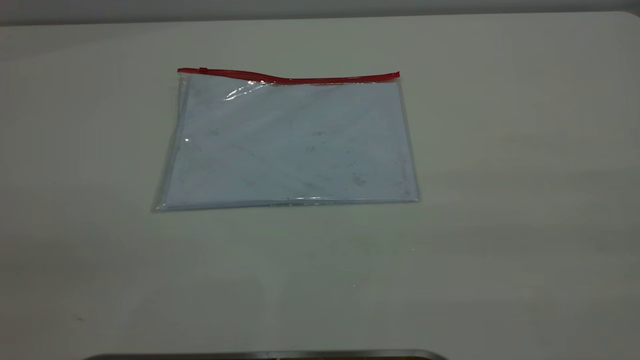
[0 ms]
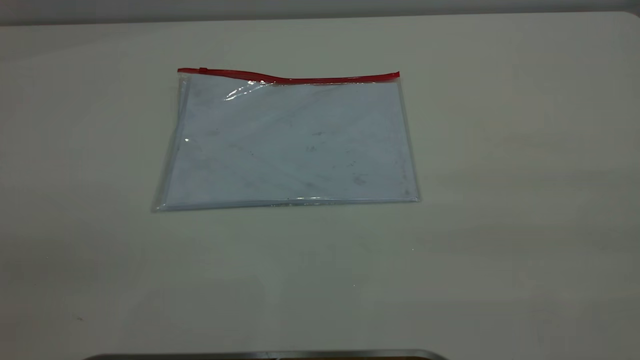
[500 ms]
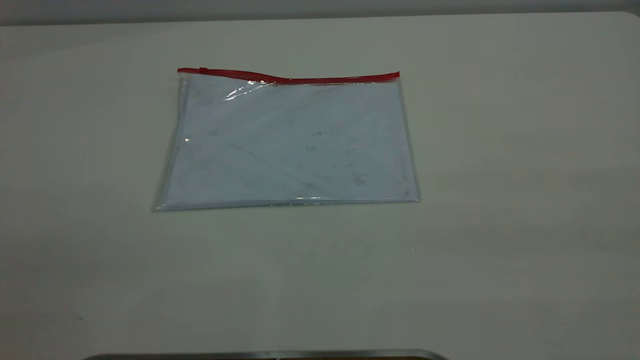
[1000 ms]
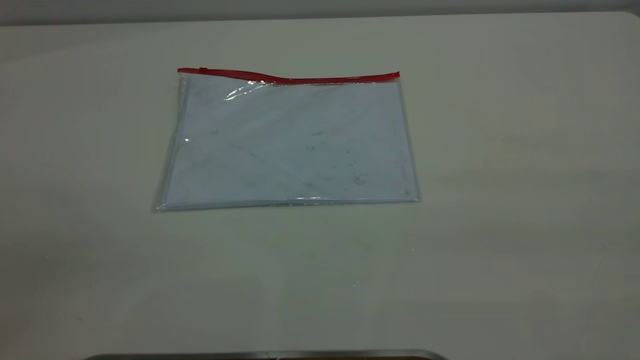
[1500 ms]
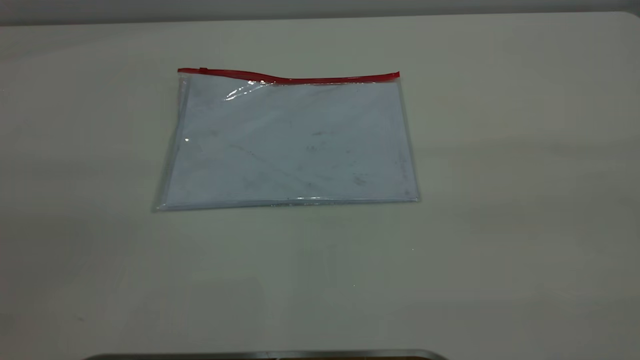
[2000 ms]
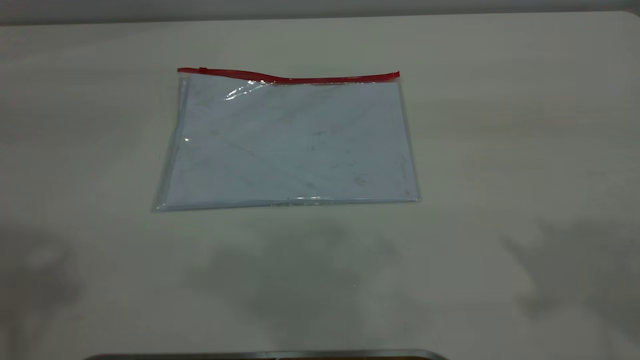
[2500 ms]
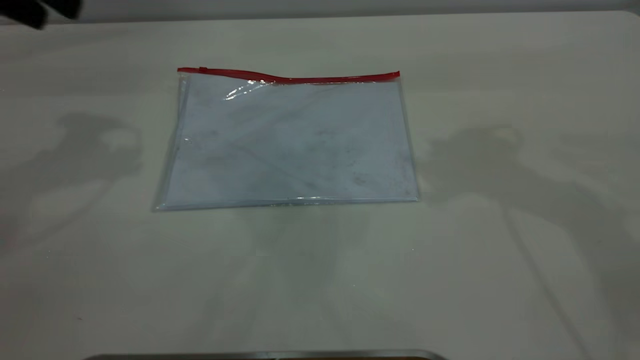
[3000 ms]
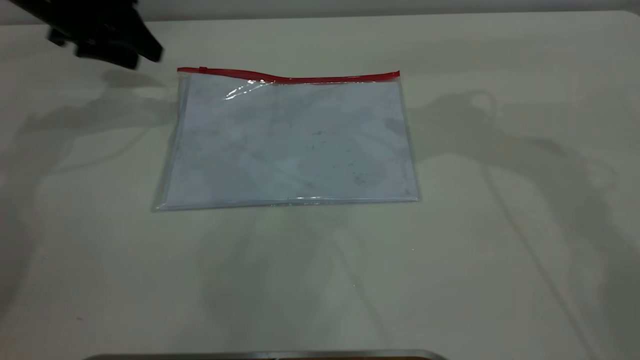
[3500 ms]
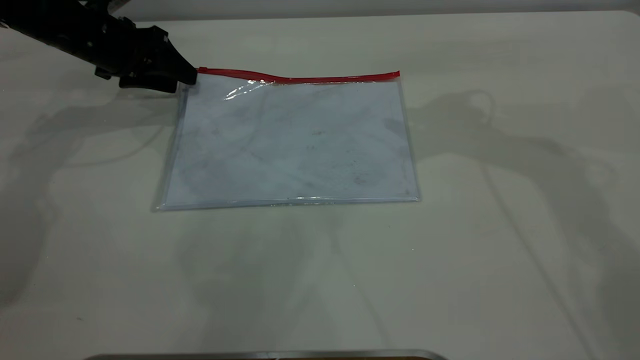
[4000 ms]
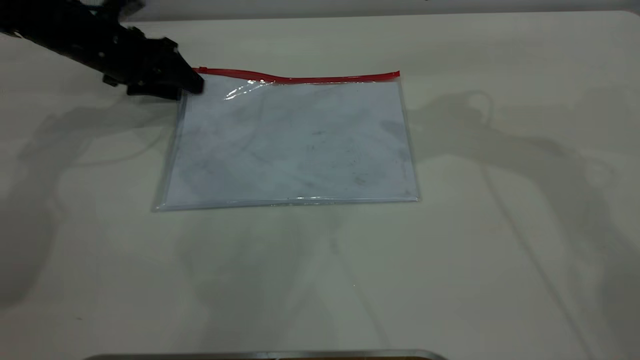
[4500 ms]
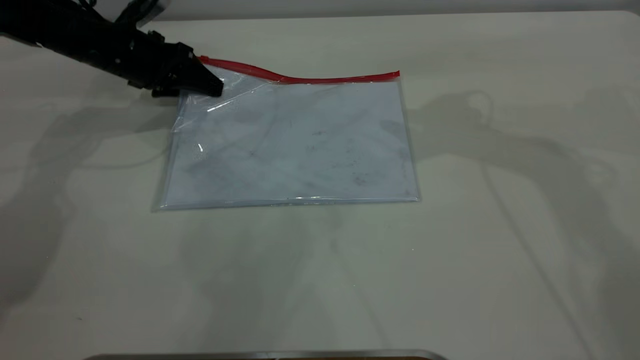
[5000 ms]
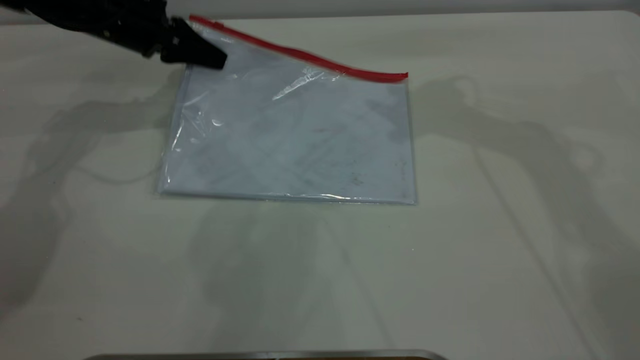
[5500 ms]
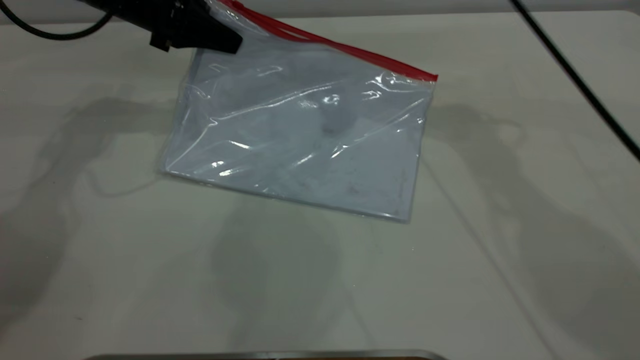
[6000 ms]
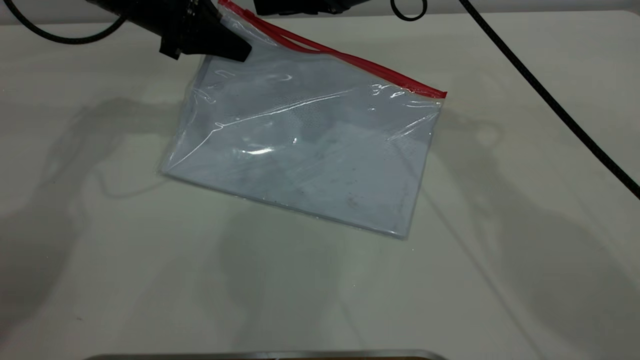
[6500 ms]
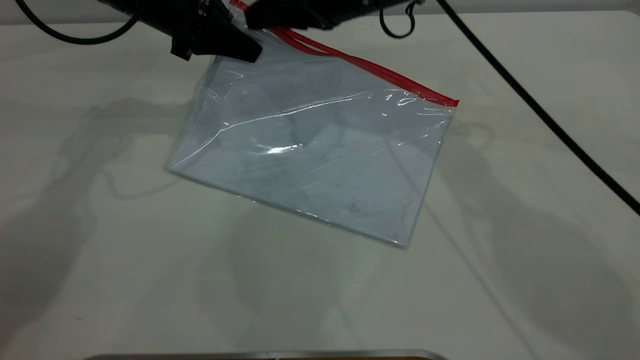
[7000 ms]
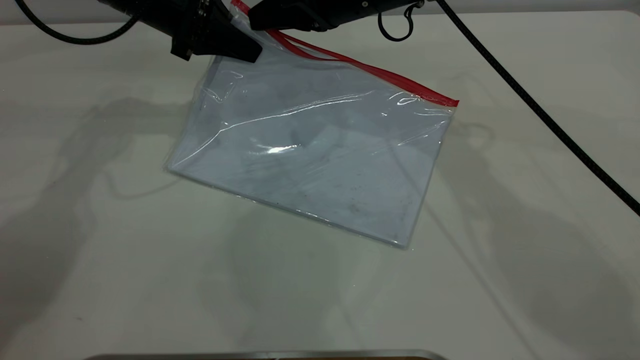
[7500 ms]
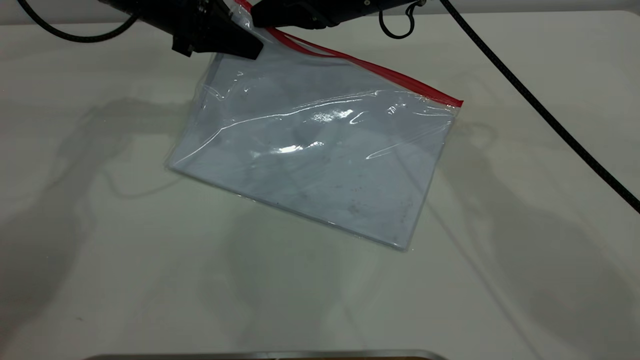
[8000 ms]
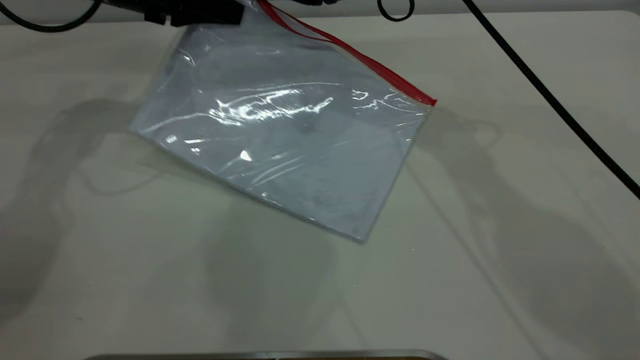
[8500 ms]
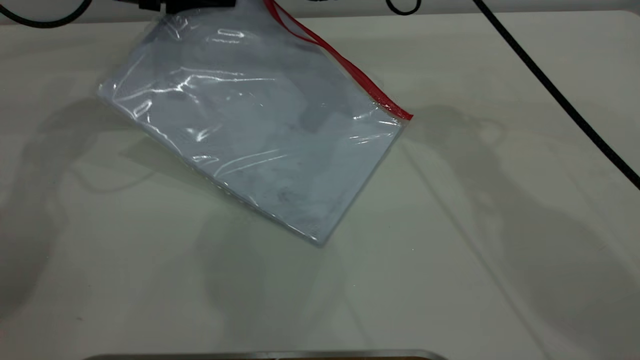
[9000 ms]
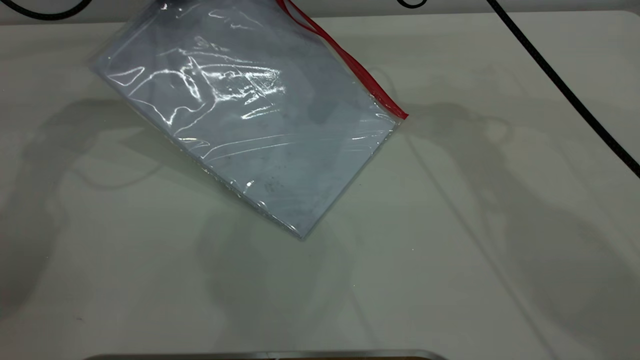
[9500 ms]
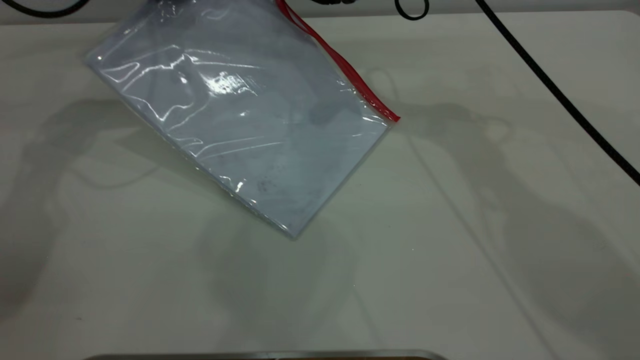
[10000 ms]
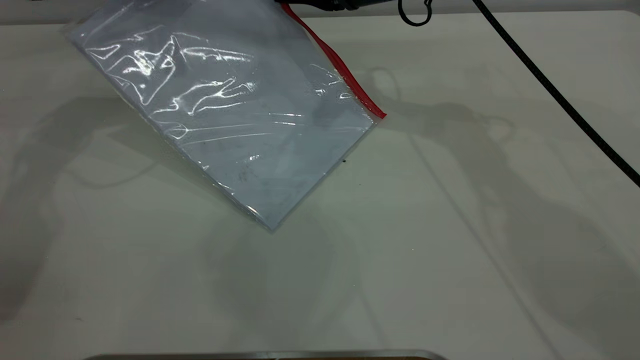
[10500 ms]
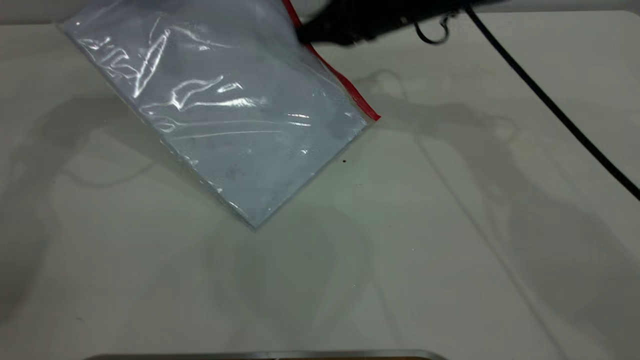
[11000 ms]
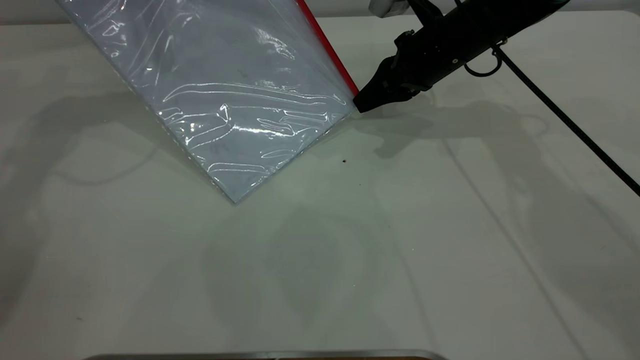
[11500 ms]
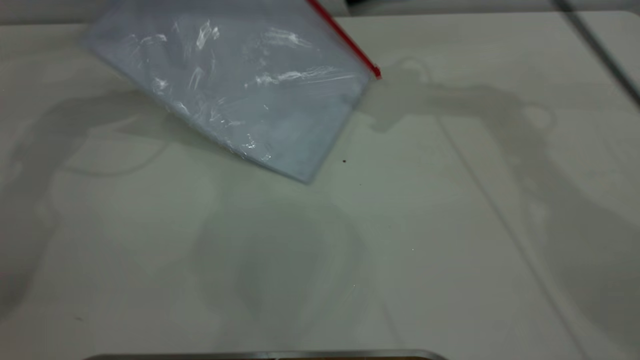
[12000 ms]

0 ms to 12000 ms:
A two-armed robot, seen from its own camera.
Step, 0 ms to 5500 ms: Pick up the transparent plastic bag with the left gripper.
Step, 6000 ms to 11500 ms: Pulling up the zipper on the transparent plastic bag with the right gripper to close it.
2000 ms to 4000 ms: The left gripper travels forward and downward by roughly 50 cm.
4000 ms to 6000 ms: The left gripper shifts some 10 cm to the right and upward, and closes, while the right gripper heads to the left and forward, covering about 10 cm.
6000 ms to 8000 ms: The right gripper closes its fingers.
8000 ms to 10000 ms: The left gripper shifts by roughly 5 cm.
10000 ms to 12000 ms: The right gripper shifts approximately 10 cm upward and to the right, and opens up.

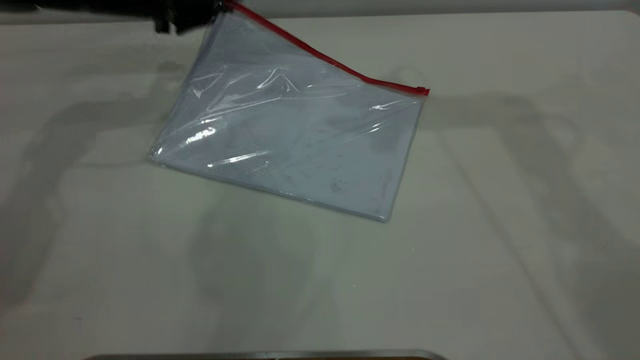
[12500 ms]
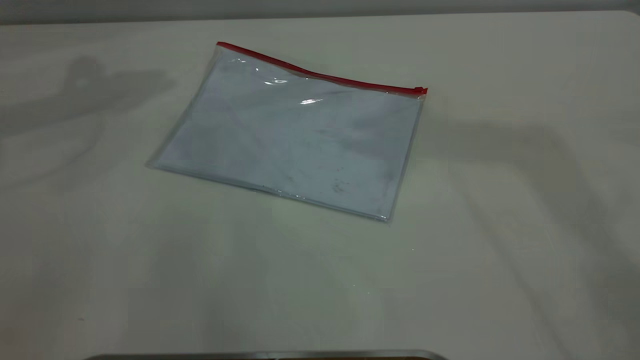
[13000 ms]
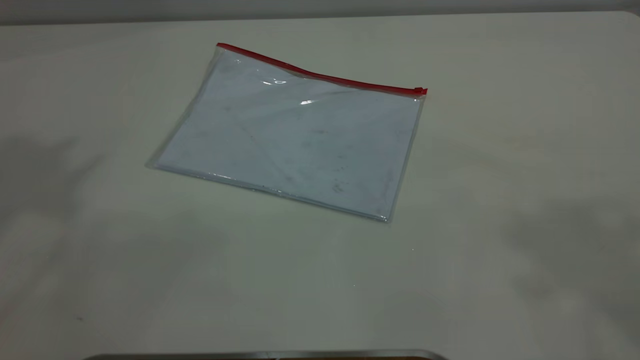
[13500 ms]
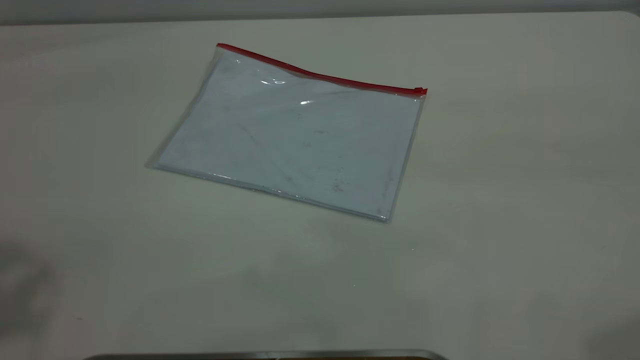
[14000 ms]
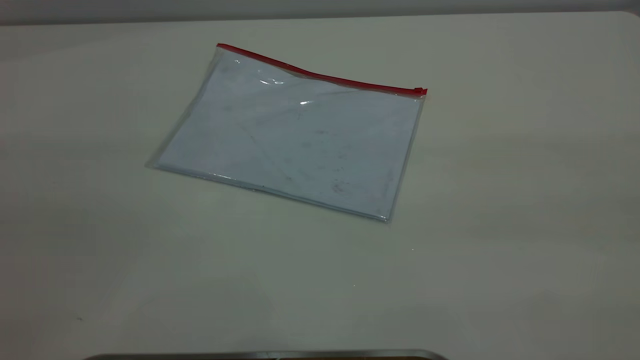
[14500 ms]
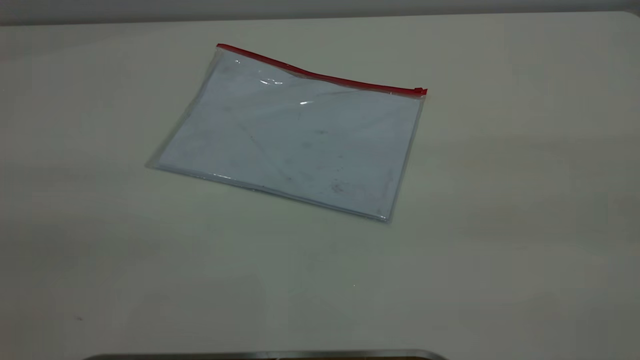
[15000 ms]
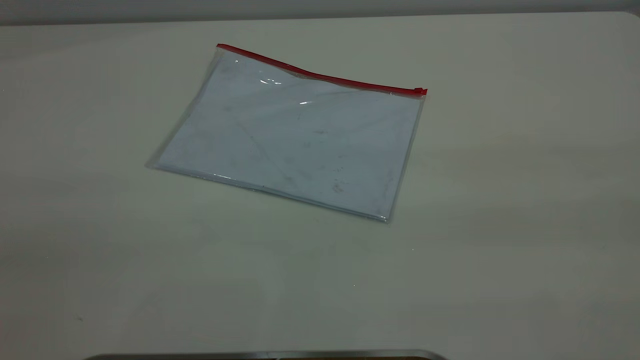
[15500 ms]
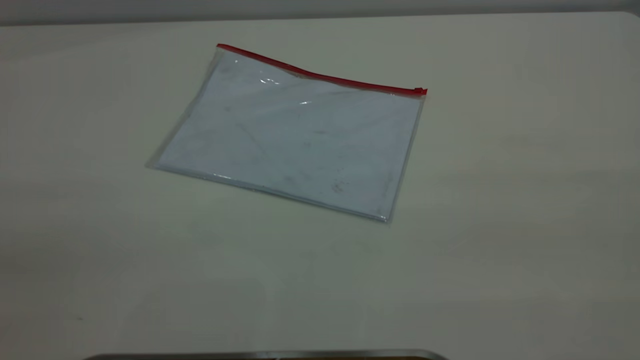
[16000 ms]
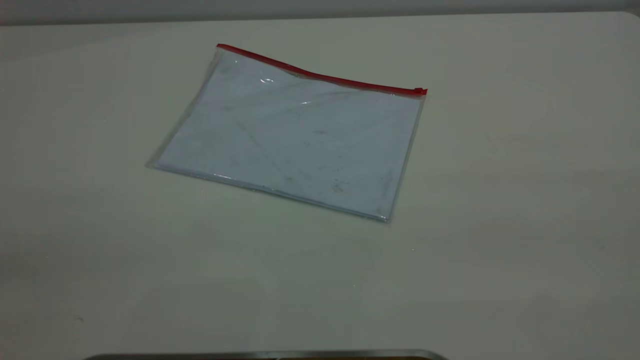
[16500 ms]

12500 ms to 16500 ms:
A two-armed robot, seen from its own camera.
12500 ms to 14500 ms: The right gripper heads backward, covering approximately 40 cm. The left gripper shifts about 50 cm backward and upward.
